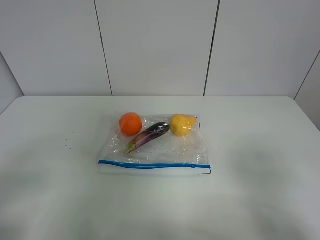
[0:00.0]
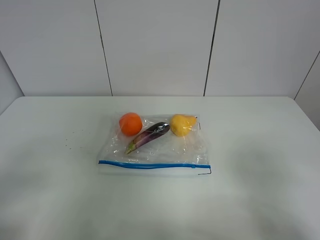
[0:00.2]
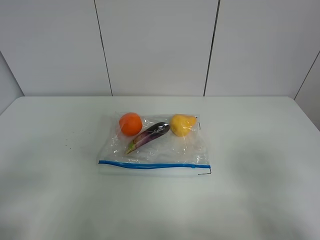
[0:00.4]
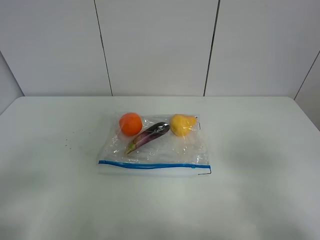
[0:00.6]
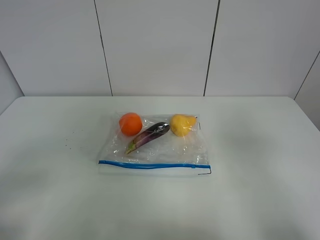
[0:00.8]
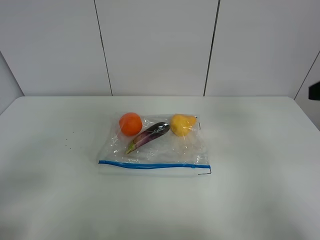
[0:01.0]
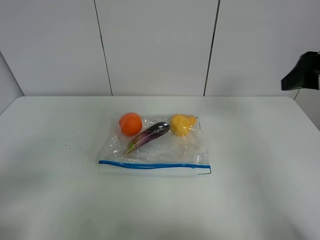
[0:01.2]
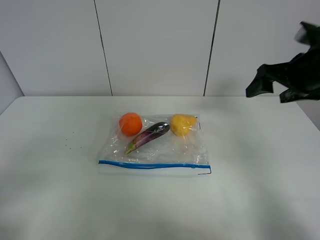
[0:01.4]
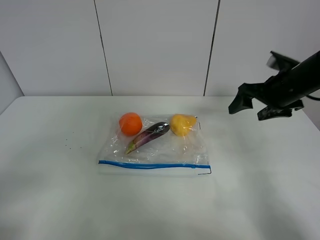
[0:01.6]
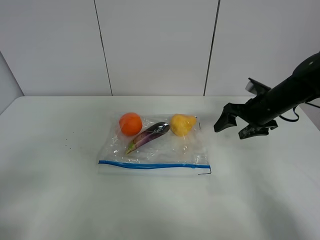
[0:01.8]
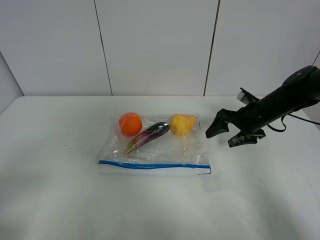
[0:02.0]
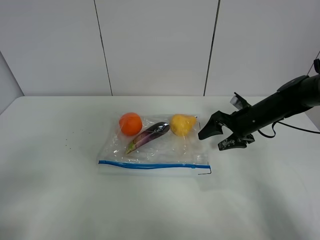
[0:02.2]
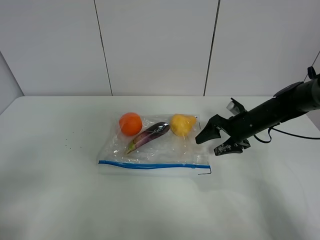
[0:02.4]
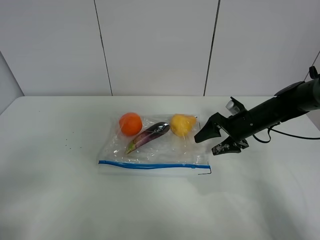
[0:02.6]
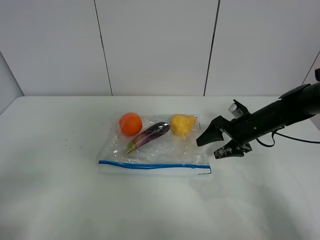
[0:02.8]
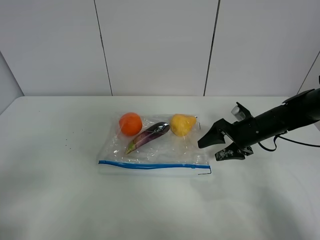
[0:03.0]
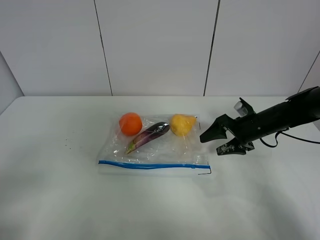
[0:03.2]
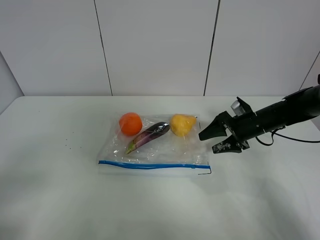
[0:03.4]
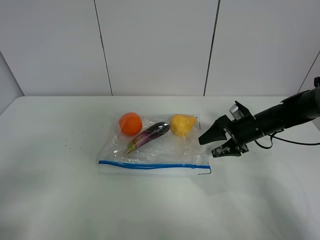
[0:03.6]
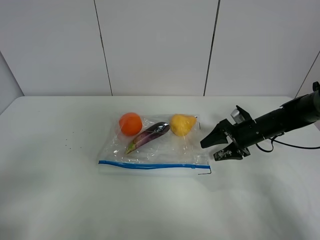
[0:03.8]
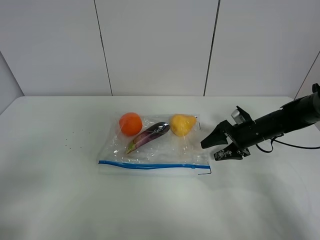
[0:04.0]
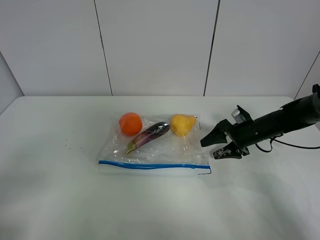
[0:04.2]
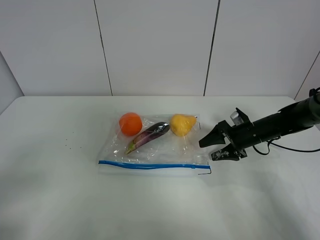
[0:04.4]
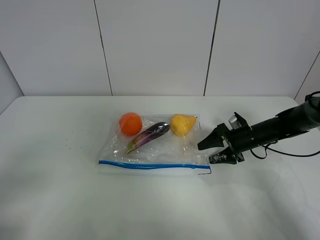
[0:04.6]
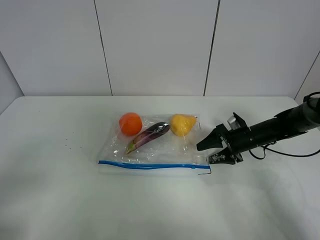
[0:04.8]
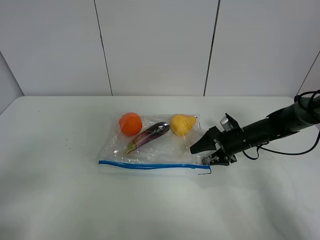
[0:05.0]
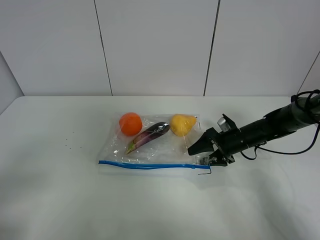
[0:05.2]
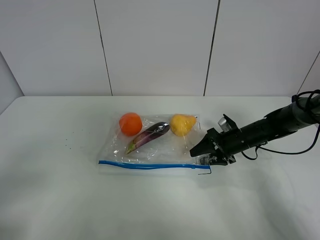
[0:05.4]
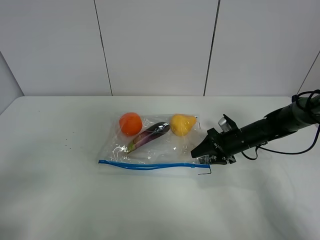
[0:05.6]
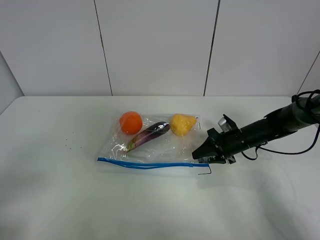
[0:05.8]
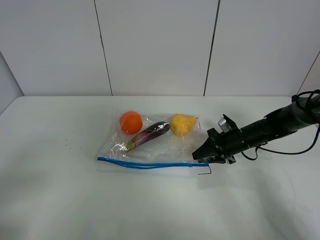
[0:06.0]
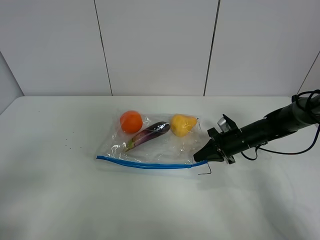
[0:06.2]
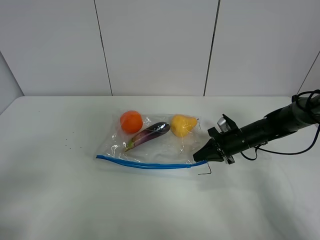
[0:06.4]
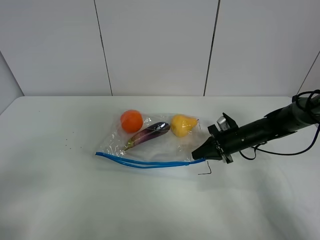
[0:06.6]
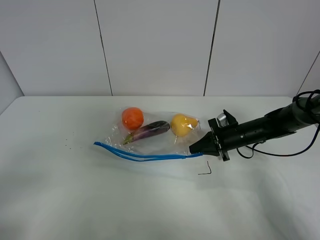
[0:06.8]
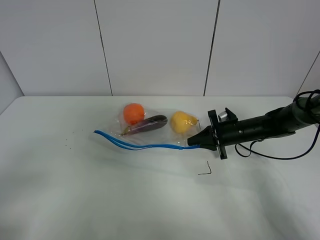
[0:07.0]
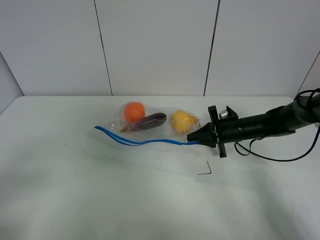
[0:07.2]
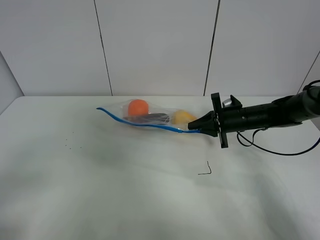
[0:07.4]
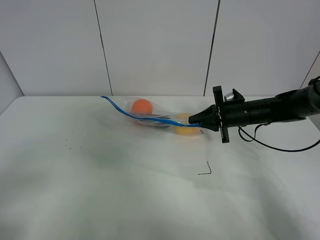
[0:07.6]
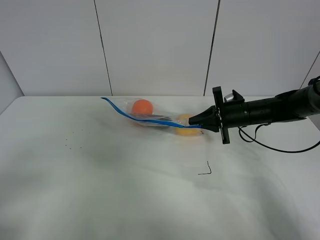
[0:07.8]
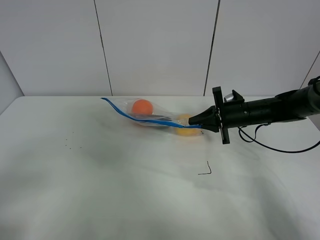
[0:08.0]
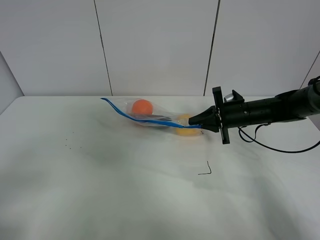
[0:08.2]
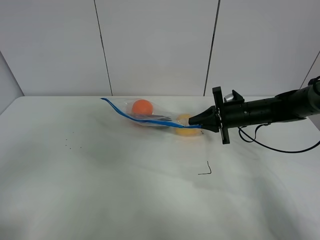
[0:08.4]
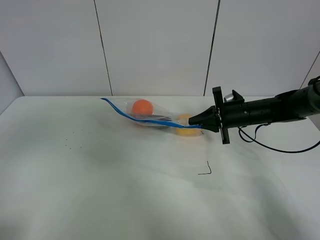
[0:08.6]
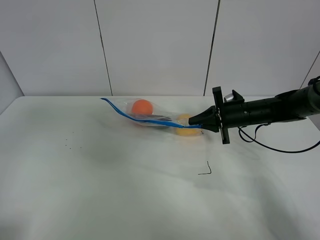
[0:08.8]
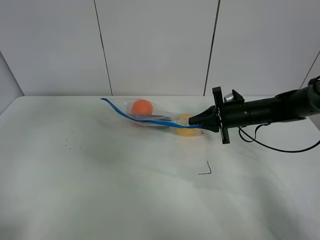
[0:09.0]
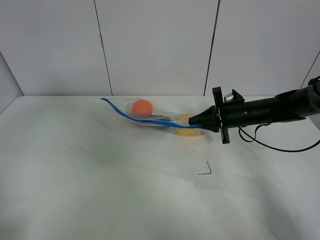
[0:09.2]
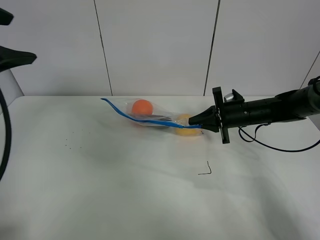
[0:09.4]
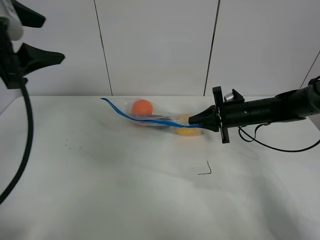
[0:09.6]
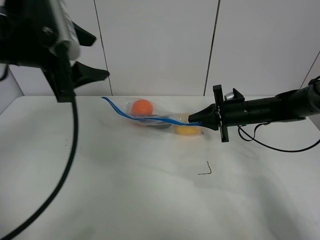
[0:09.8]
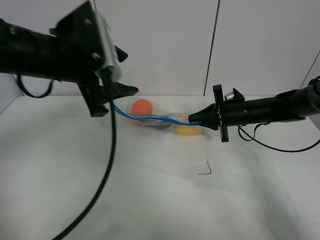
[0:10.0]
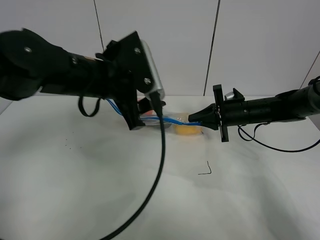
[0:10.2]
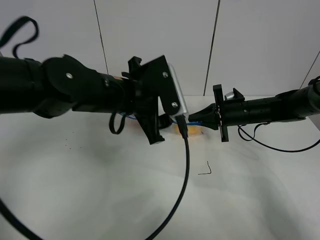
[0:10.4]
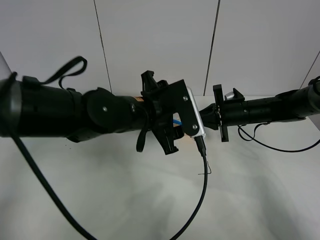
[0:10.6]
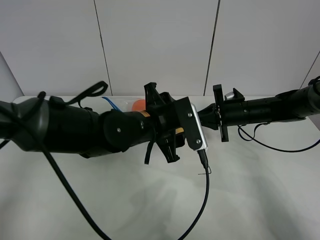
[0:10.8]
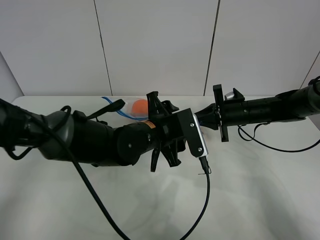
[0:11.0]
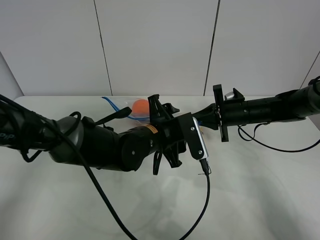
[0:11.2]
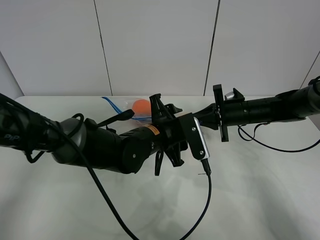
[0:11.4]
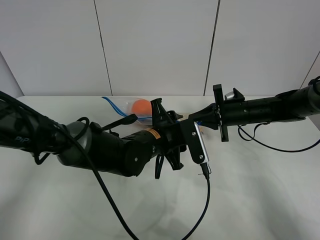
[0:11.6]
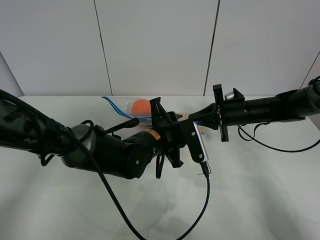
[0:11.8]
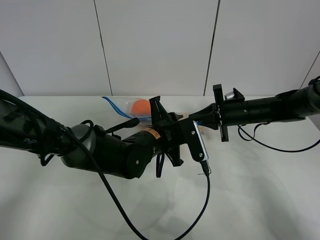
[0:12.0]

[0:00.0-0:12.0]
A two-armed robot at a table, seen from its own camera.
Step, 0:00.0 to 0:06.2: Grasp the fruit bag with right gripper.
Step, 0:06.4 to 0:07.8: Lift the fruit bag with your right gripper.
0:00.0 to 0:01.6: The right gripper shifts roughly 35 cm forward.
0:01.6 to 0:03.0: The right gripper travels downward by about 10 cm.
0:03.0 to 0:04.4: The grippers stay close to where they were, moving slightly.
0:04.4 to 0:06.0: The right gripper closes its fingers.
0:06.0 to 0:07.6: The right gripper shifts about 5 cm upward, and closes up.
0:07.6 to 0:09.0: The left gripper shifts about 20 cm forward and upward.
0:09.0 to 0:10.4: The left gripper is displaced to the right, downward and forward by approximately 30 cm.
0:10.4 to 0:12.0: The left gripper moves downward, some 10 cm, and closes its fingers.

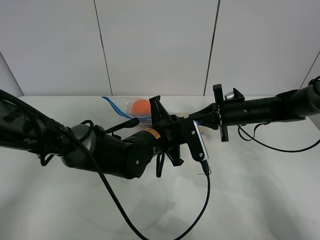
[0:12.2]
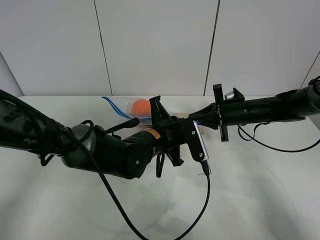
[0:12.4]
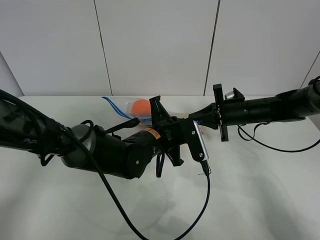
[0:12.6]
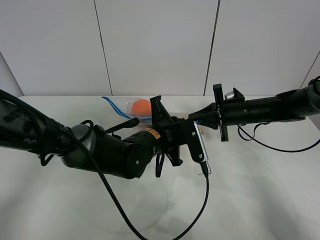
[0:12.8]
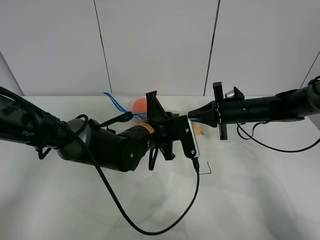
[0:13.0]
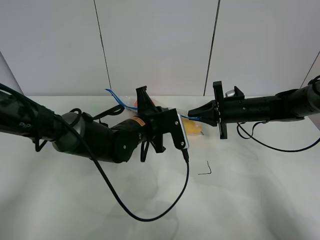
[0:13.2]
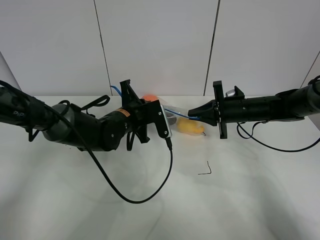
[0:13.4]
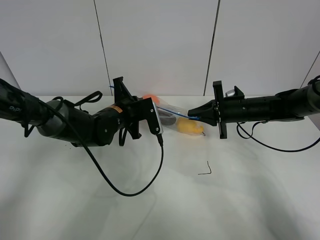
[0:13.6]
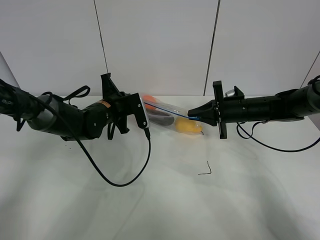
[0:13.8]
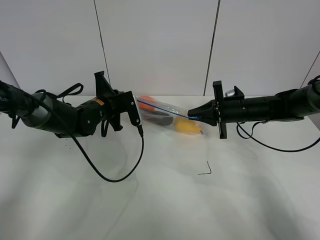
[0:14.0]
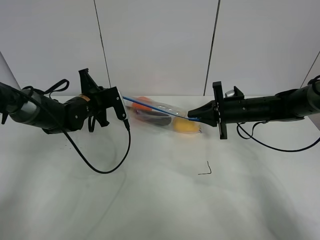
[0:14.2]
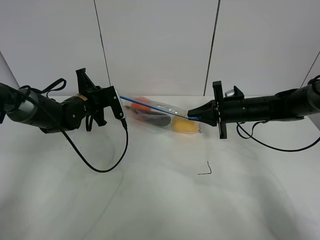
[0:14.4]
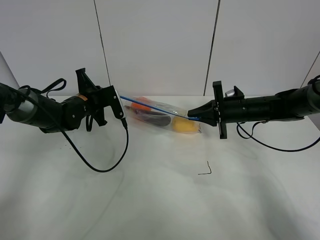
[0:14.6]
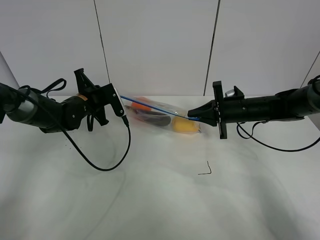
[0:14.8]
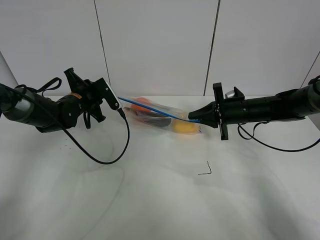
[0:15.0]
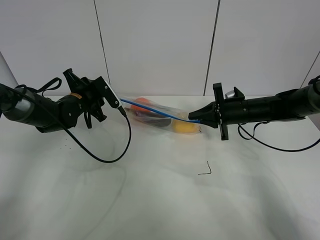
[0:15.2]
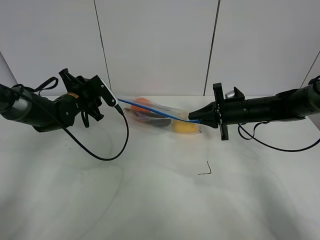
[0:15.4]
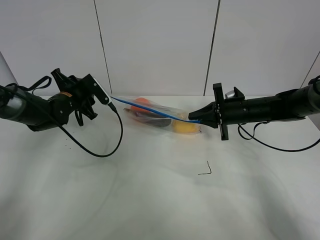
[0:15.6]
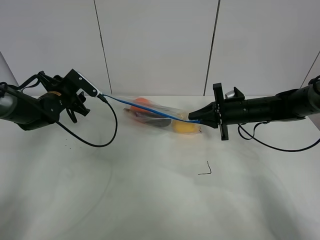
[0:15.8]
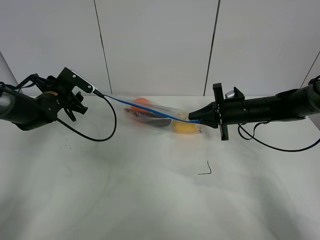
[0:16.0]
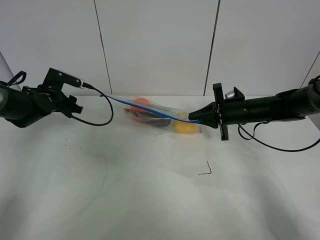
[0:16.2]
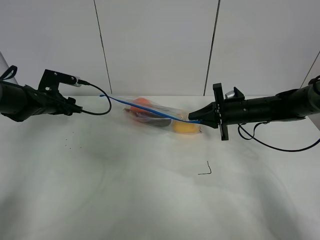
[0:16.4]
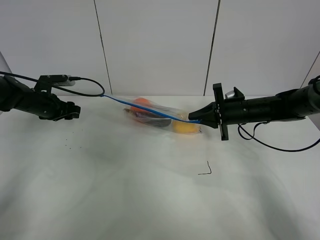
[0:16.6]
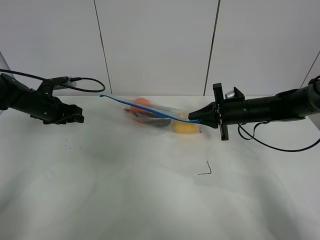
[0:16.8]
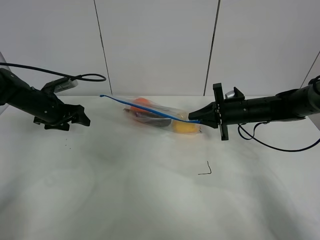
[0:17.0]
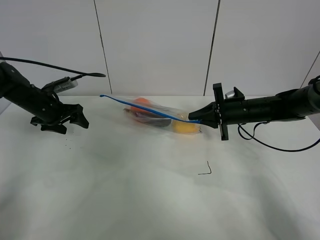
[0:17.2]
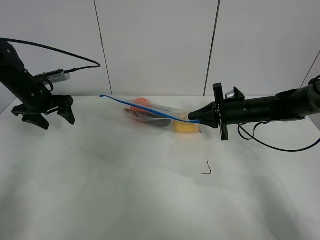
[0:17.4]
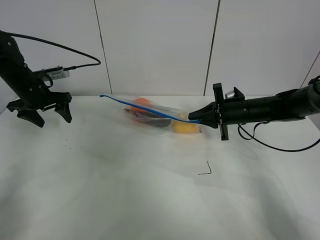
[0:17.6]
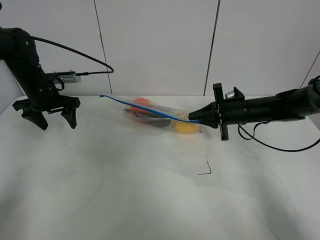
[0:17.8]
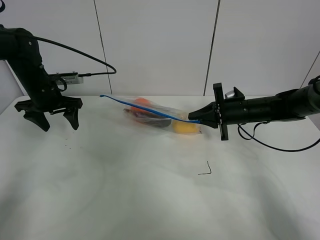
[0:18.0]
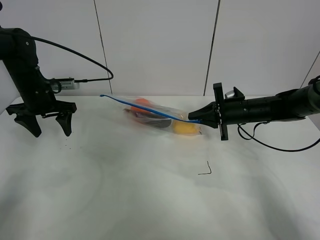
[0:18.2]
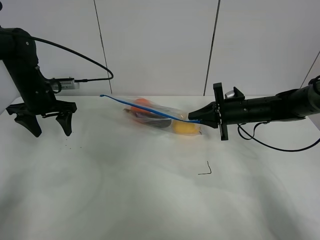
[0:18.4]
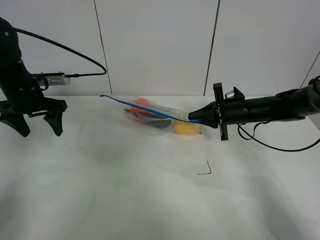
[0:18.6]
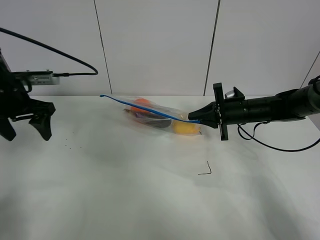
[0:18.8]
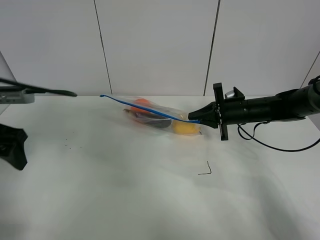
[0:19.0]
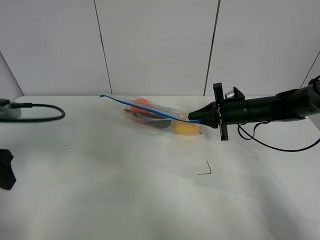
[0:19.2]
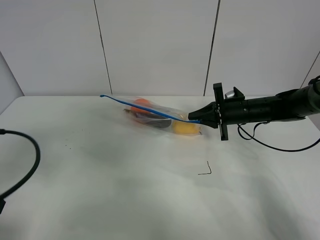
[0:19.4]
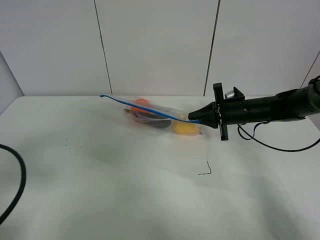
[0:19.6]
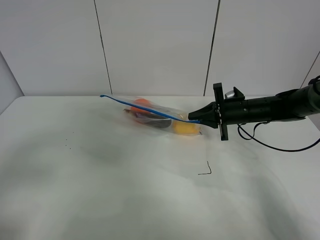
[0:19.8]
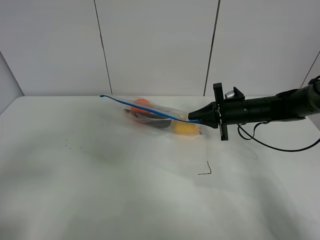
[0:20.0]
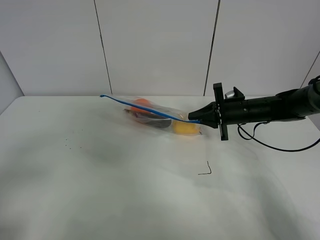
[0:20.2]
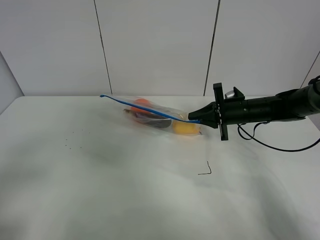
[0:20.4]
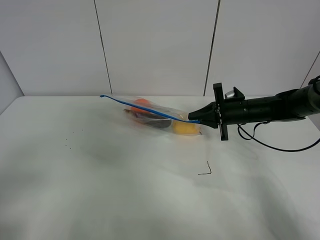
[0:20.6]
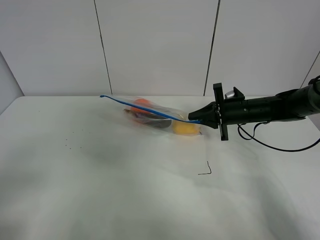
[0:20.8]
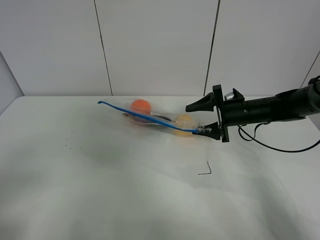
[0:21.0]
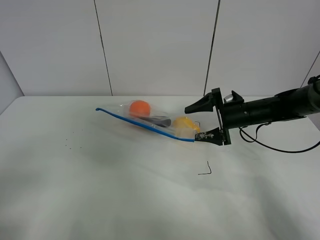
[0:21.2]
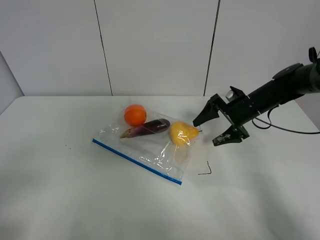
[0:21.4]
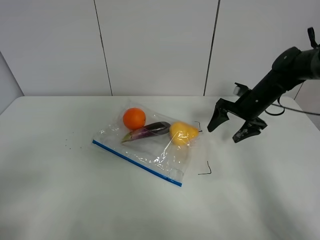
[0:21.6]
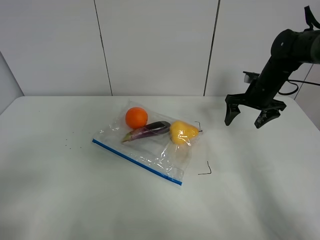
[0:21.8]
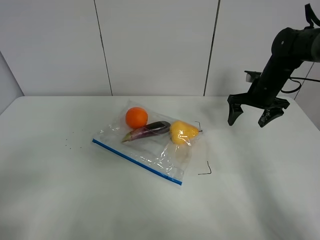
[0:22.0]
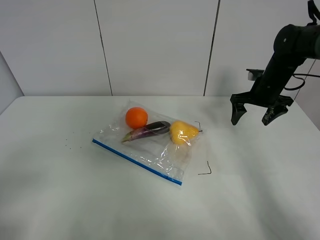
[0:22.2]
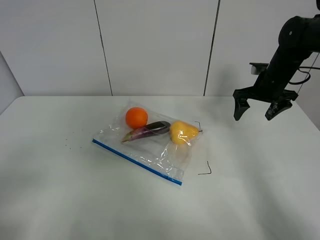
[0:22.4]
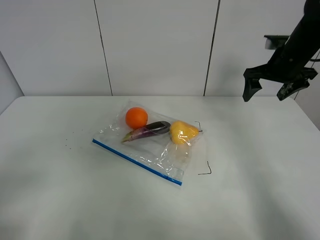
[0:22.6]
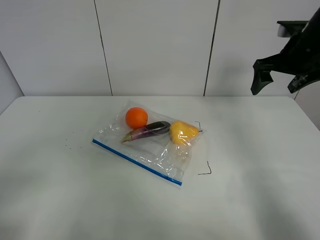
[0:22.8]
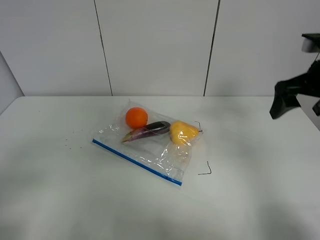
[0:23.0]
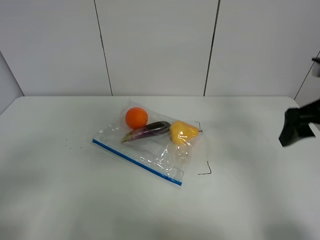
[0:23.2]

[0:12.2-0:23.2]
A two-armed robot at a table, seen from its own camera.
Step, 0:12.2 to 0:15.2: Pull the fruit bag with left gripper.
0:12.2 to 0:13.8: The left gripper shifts roughly 15 cm to the left and forward.
0:13.8 to 0:15.4: The left gripper moves to the left, about 10 cm, and opens up.
0:15.4 to 0:17.0: The left gripper shifts approximately 10 cm to the left.
0:17.0 to 0:18.4: The left gripper shifts roughly 5 cm upward.
0:18.4 to 0:20.0: The left gripper is displaced backward by roughly 35 cm.
0:20.0 to 0:21.6: The right gripper shifts by about 5 cm, and opens its fingers.
0:21.6 to 0:23.2: The right gripper shifts approximately 25 cm backward and upward.
